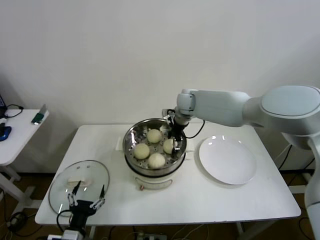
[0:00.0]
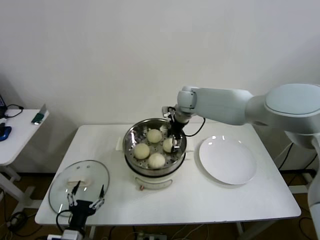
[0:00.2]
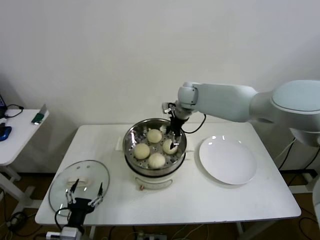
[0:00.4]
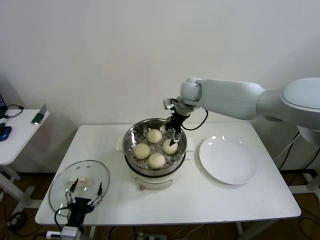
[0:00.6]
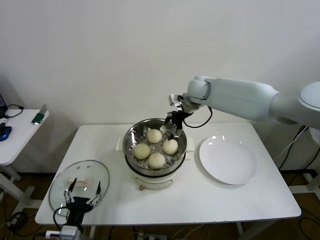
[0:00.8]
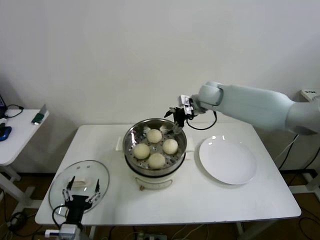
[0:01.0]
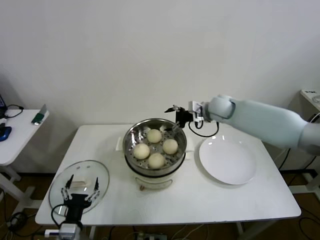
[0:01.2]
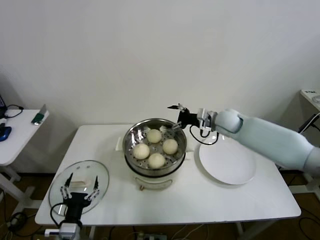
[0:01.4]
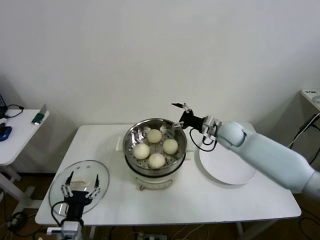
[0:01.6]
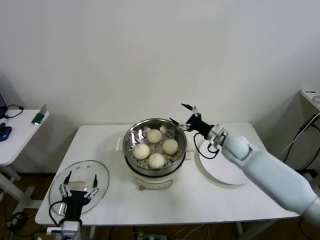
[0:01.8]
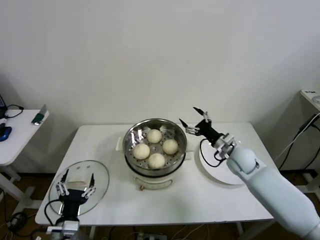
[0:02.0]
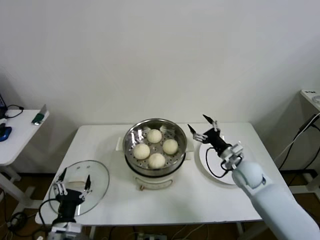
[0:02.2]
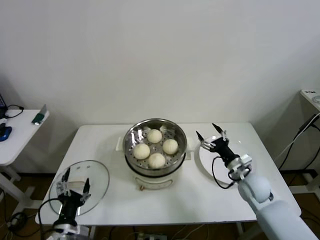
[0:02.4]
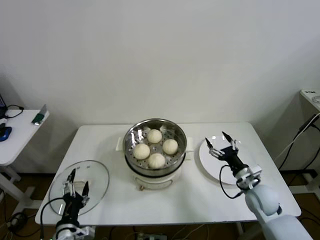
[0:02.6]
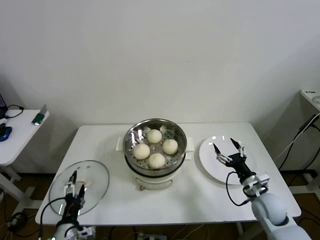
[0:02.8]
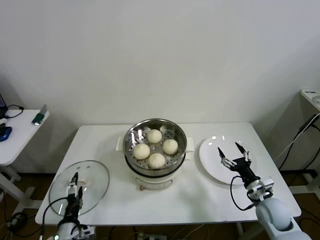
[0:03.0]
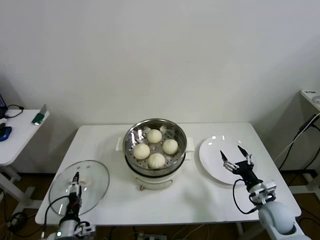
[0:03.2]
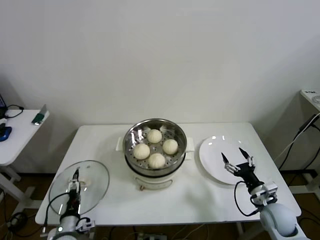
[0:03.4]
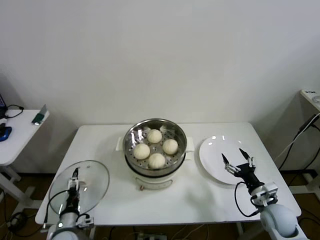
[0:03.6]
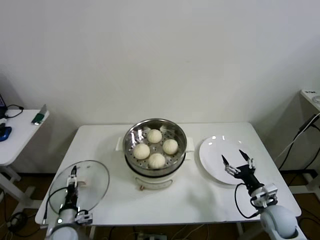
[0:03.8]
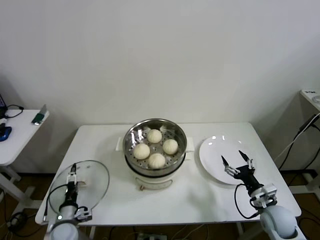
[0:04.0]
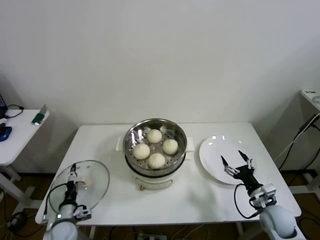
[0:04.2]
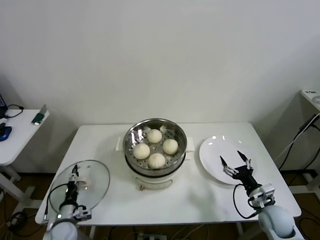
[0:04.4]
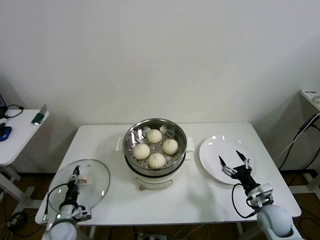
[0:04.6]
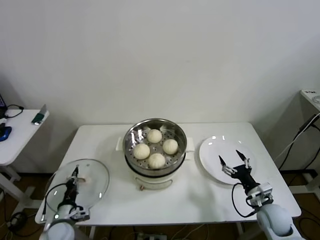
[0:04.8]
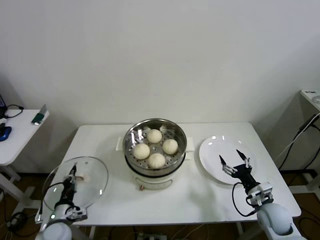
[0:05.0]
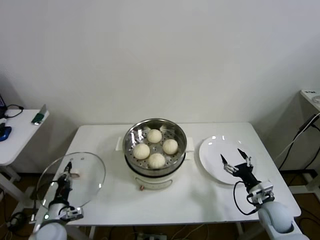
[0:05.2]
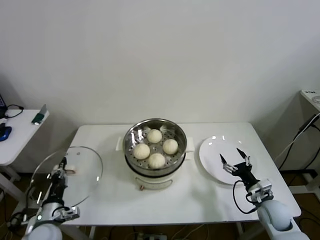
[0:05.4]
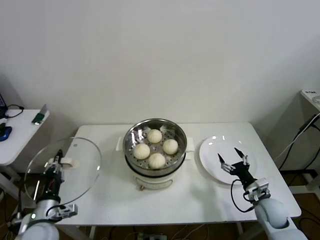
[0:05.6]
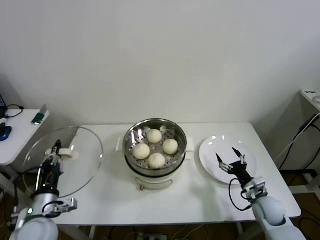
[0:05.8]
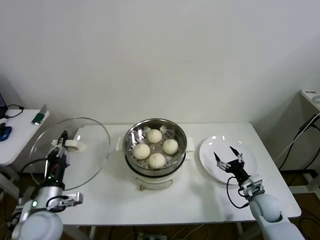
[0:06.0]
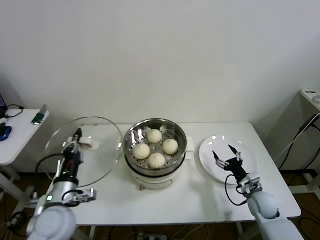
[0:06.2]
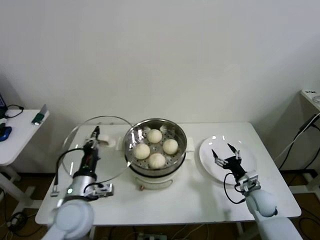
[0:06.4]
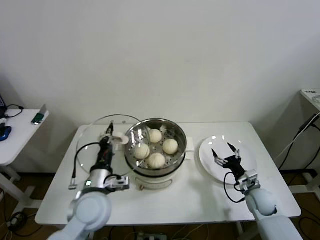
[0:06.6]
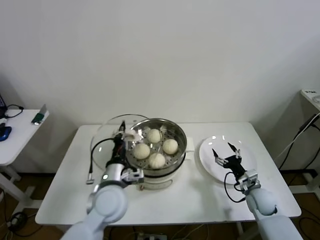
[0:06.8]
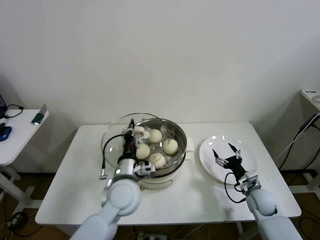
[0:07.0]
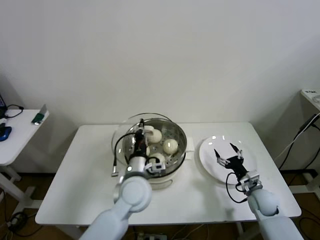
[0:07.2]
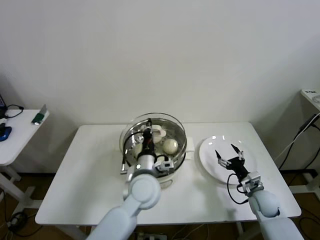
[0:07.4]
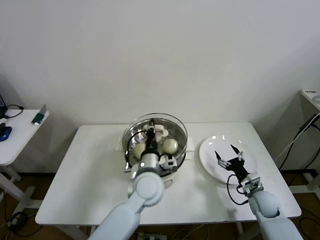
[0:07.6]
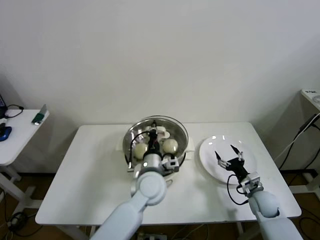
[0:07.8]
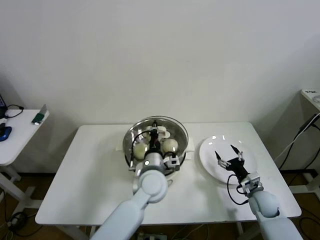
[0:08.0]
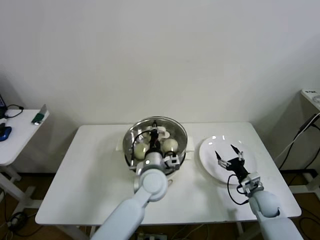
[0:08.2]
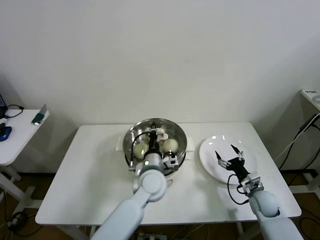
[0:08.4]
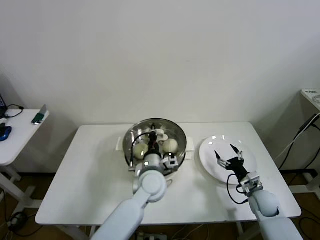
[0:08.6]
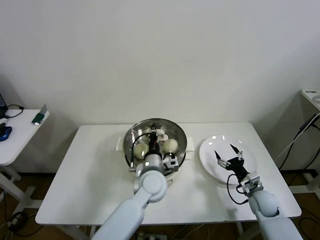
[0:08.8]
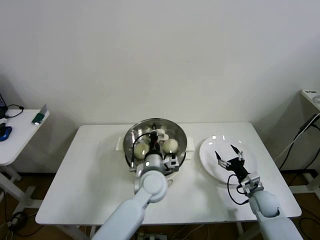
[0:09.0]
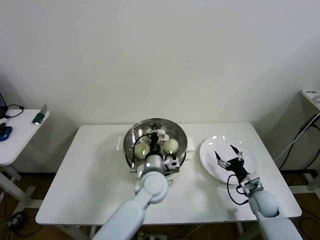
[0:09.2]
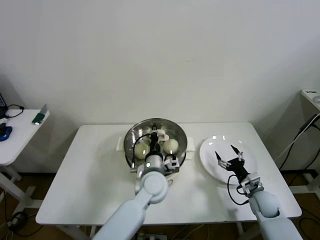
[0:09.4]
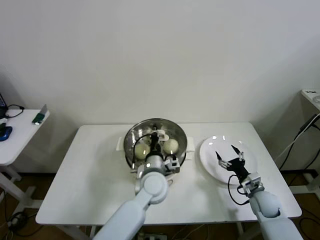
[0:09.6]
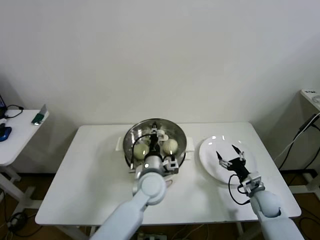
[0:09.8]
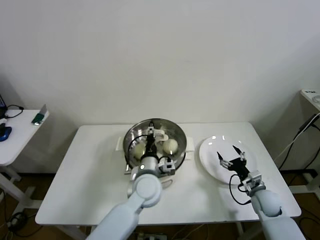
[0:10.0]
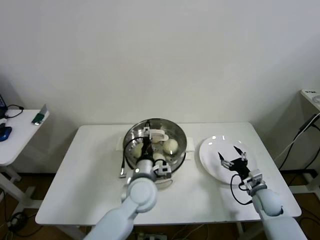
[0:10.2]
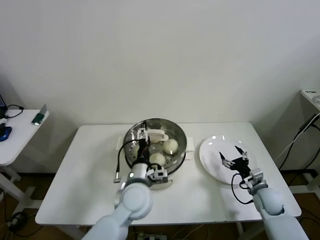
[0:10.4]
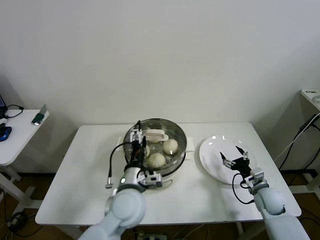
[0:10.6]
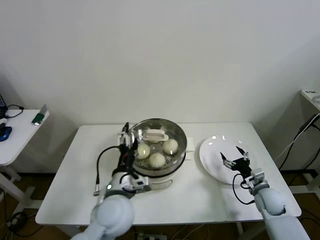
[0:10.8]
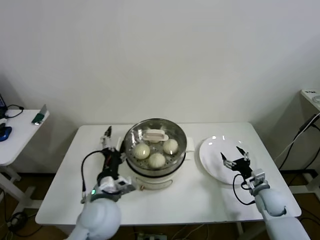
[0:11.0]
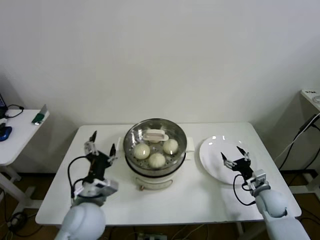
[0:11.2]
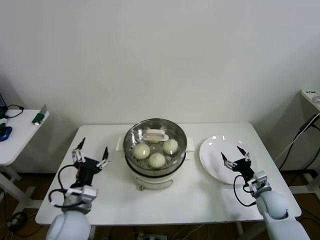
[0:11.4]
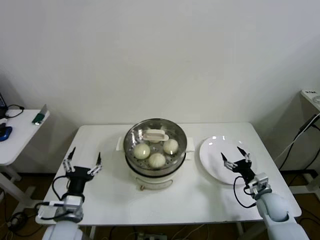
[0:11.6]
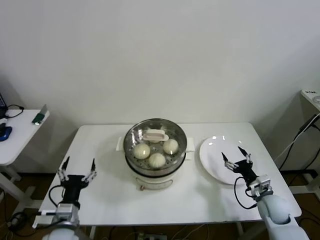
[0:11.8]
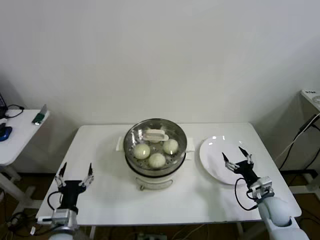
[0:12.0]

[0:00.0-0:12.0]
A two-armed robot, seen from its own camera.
Step, 0:00.6 to 0:04.8: Grasp the pot lid with left gripper.
Step, 0:05.0 to 0:10.8: Place the pot lid on the steamer with left gripper.
0:00.0 to 0:01.6: The right gripper travels to the right, backward and downward by about 20 cm.
0:01.6 to 0:03.0: The right gripper is displaced backward, downward and to the right by about 30 cm.
0:03.0 to 0:04.4: The left gripper heads forward, downward and to the left, covering some 15 cm.
0:04.4 to 0:06.0: The left gripper goes some 20 cm upward, and closes; the right gripper changes place by about 5 cm.
0:06.0 to 0:07.6: The left gripper goes approximately 30 cm to the right and forward.
0:07.6 to 0:09.0: The grippers move only a little.
0:09.0 to 0:10.4: The left gripper changes place by roughly 5 cm, and opens its fingers.
0:10.4 to 0:12.0: The left gripper is displaced to the left and backward by roughly 25 cm.

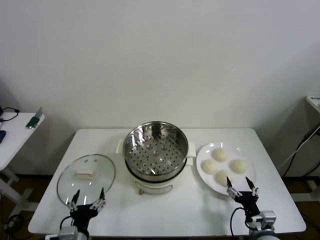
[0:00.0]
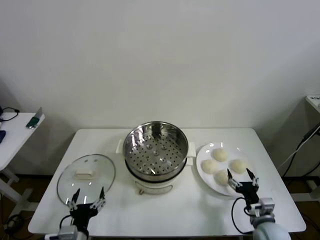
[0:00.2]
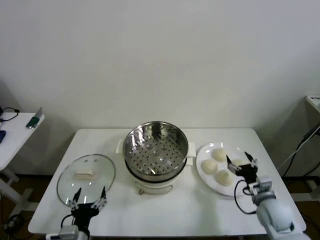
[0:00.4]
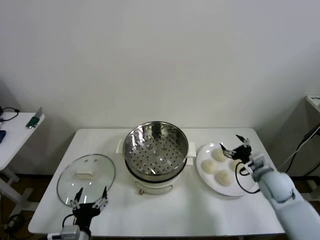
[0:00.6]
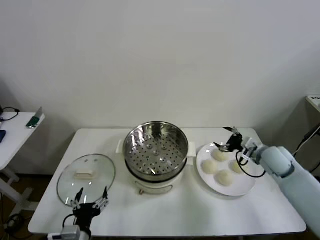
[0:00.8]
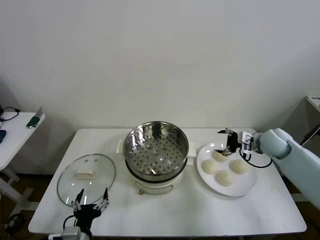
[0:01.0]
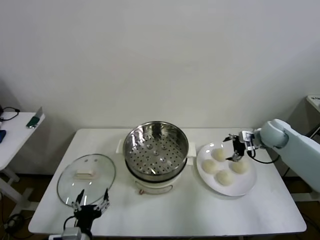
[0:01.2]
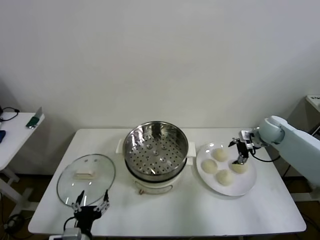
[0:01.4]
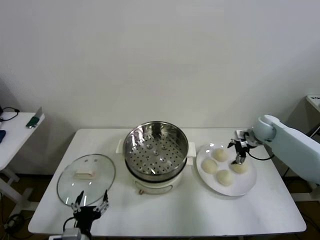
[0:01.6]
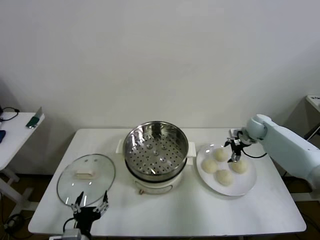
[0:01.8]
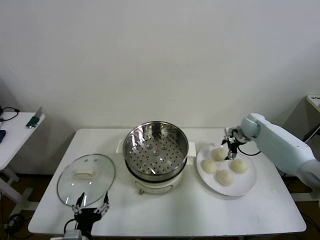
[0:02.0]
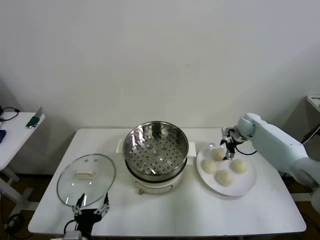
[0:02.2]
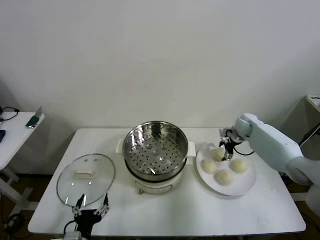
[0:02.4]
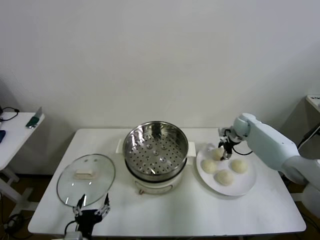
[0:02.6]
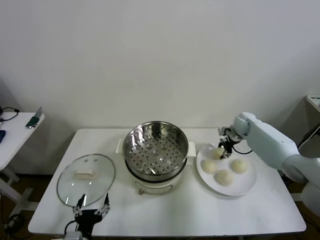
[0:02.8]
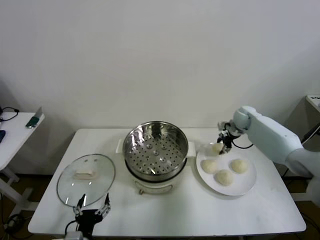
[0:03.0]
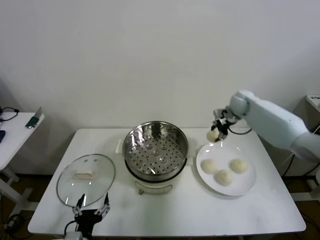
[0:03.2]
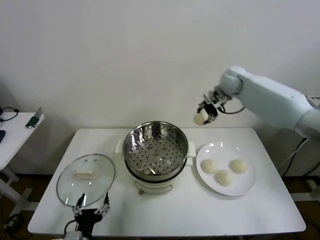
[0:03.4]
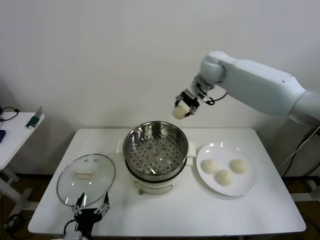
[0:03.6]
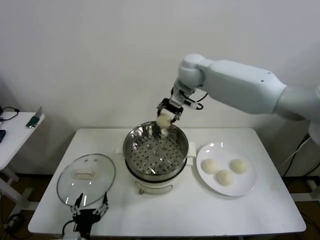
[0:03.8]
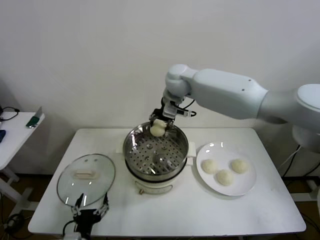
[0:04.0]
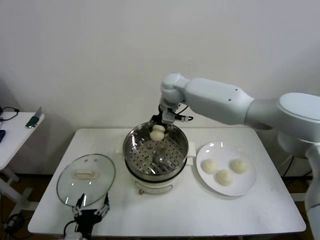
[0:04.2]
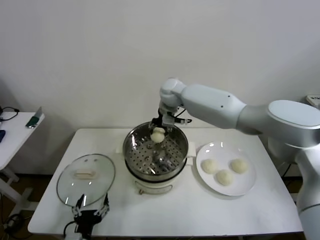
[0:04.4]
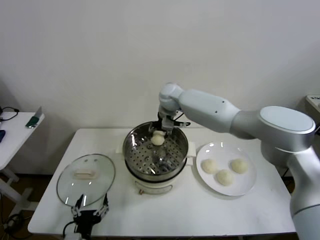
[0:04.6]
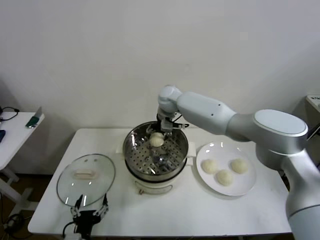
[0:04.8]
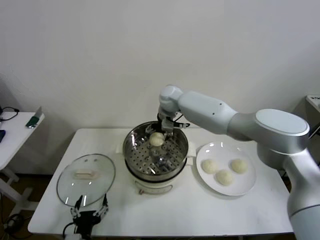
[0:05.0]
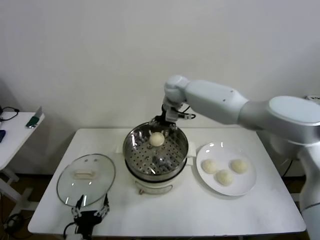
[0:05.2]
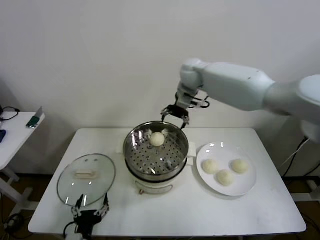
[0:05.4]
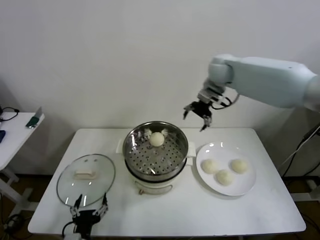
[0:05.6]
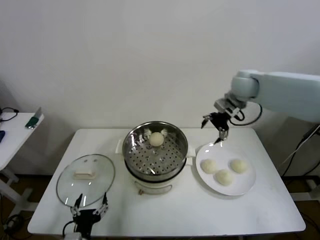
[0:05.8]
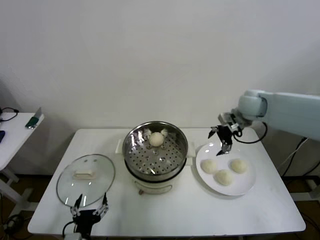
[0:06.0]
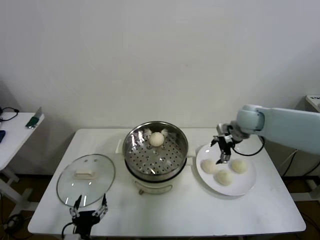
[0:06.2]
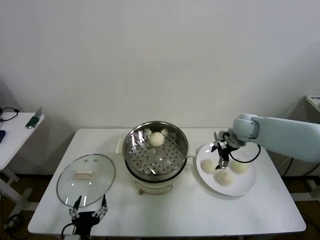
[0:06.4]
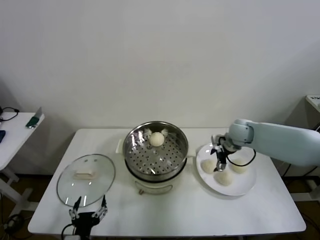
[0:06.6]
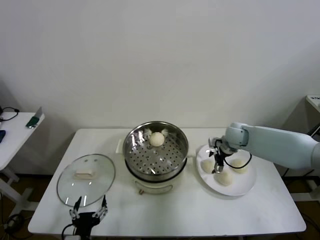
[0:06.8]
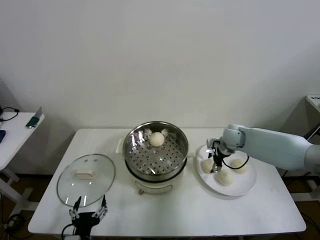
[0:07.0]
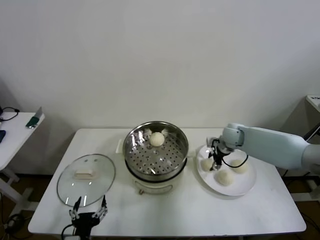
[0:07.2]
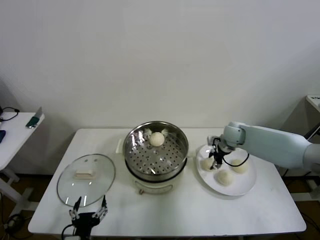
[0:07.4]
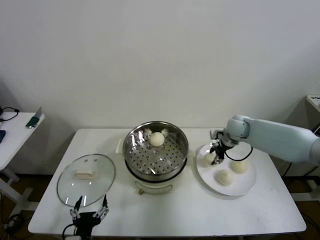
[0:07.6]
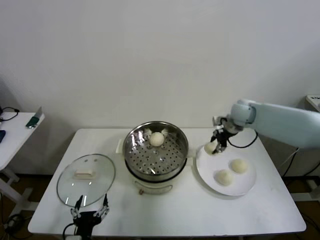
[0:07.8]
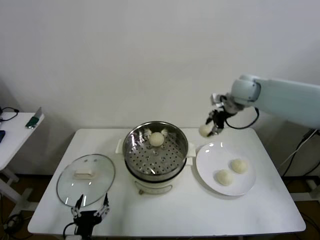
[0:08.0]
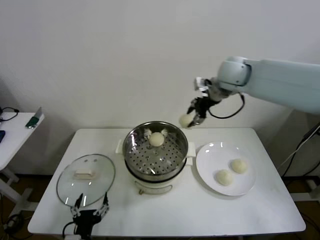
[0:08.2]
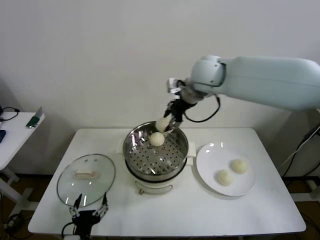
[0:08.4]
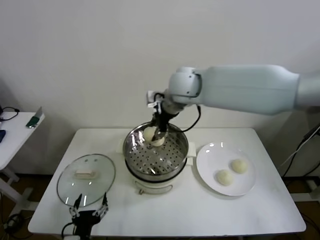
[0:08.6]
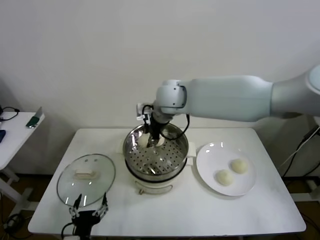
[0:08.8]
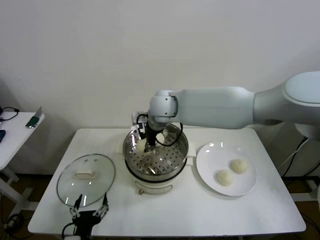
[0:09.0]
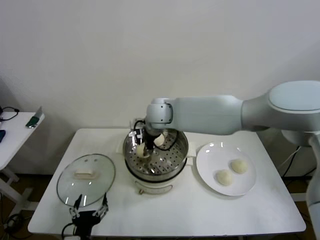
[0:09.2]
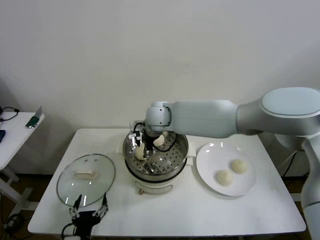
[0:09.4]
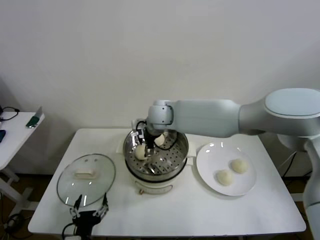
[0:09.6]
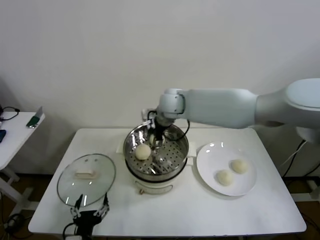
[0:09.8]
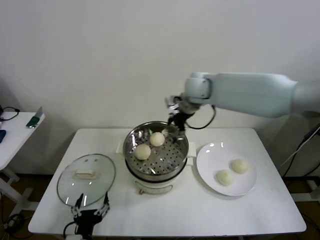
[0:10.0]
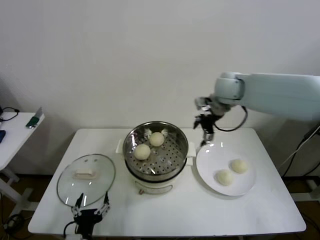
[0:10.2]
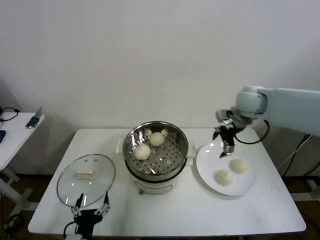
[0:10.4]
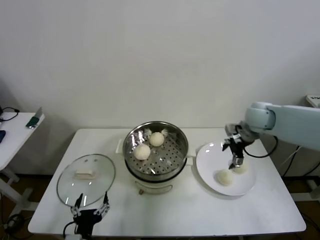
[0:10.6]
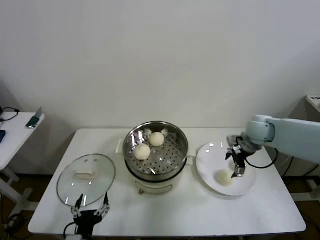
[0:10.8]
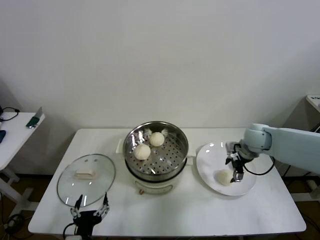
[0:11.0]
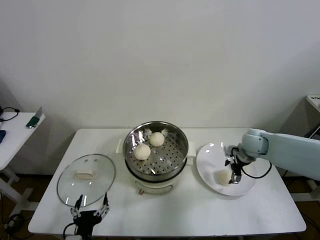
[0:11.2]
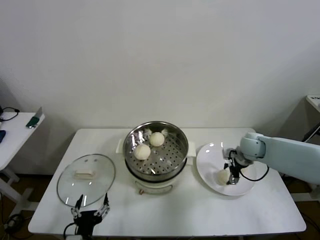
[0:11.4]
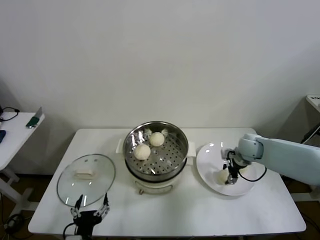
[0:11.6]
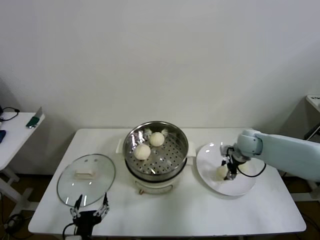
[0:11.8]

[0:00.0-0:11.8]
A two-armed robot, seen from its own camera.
Step, 0:00.0 to 0:02.6: Grasp the baozi in the plate with right gripper.
Step, 0:02.8 to 0:04.6: Place the baozi on the steamer with right gripper.
Step, 0:05.0 to 0:07.2: Grasp the baozi in the plate with right gripper.
Step, 0:07.4 to 0:09.4: Place the baozi on the steamer with right gripper.
Step, 0:09.6 to 0:11.6: Grasp the baozi in the plate with right gripper.
0:01.4 to 0:03.0: The right gripper moves forward and to the left, about 10 cm, and closes up.
0:03.0 to 0:04.4: The right gripper travels to the left by roughly 30 cm.
0:04.4 to 0:06.0: The right gripper travels to the right by roughly 25 cm, and opens its fingers.
0:06.0 to 0:07.4: The right gripper moves downward, roughly 10 cm, and closes.
0:07.4 to 0:08.8: The right gripper heads to the left and upward, covering some 35 cm.
0:08.8 to 0:10.4: The right gripper shifts roughly 30 cm to the right, and opens up.
0:10.4 to 0:11.8: The right gripper travels downward by approximately 15 cm, and closes up.
